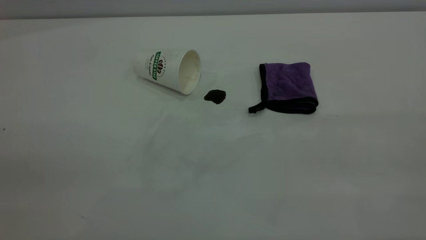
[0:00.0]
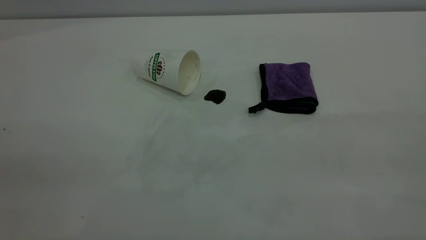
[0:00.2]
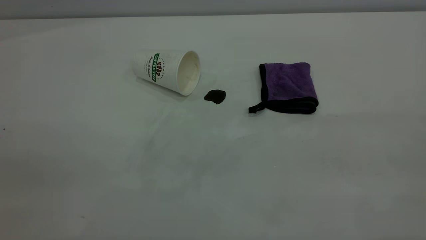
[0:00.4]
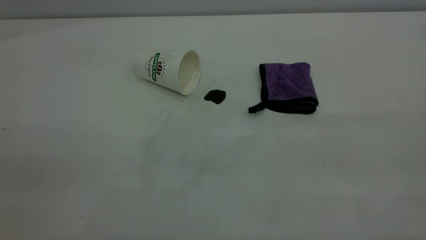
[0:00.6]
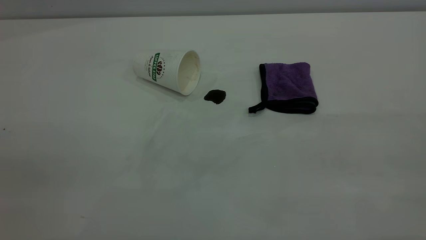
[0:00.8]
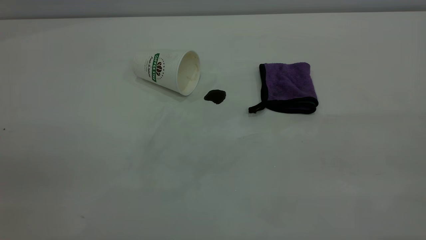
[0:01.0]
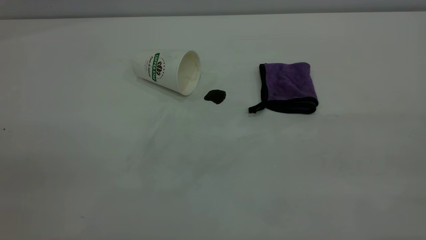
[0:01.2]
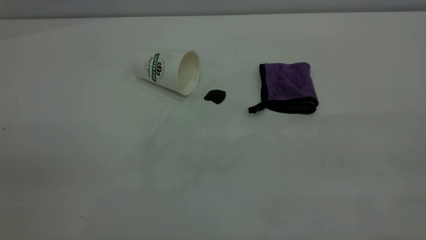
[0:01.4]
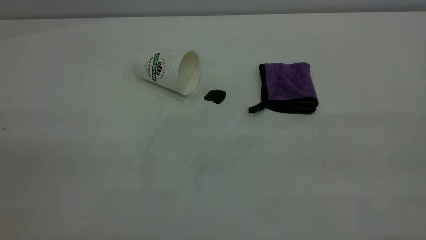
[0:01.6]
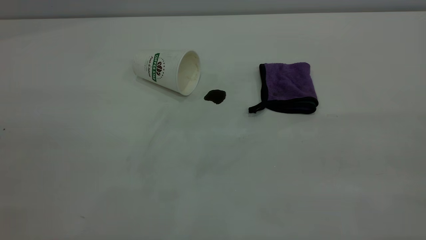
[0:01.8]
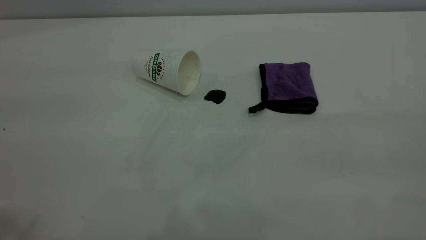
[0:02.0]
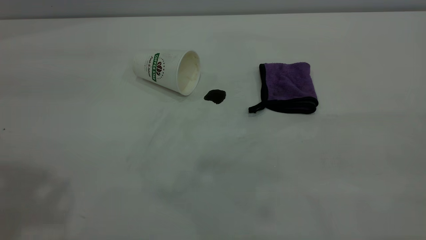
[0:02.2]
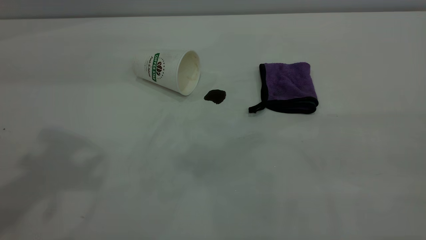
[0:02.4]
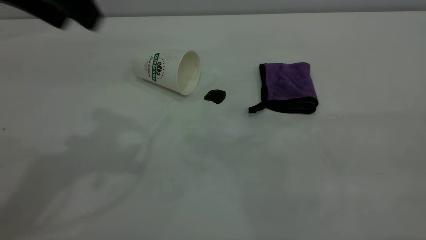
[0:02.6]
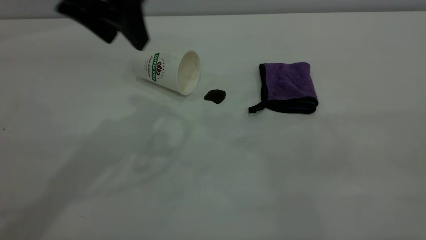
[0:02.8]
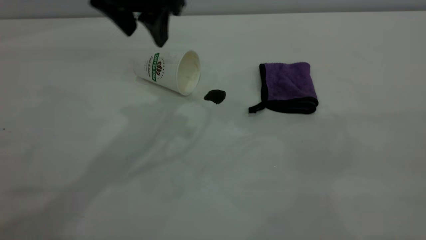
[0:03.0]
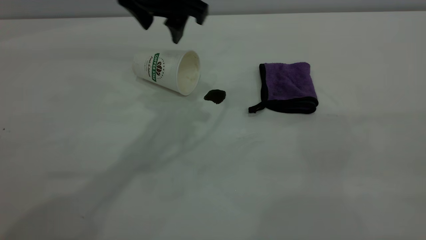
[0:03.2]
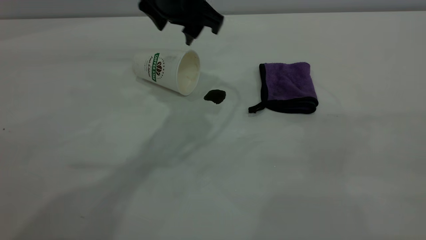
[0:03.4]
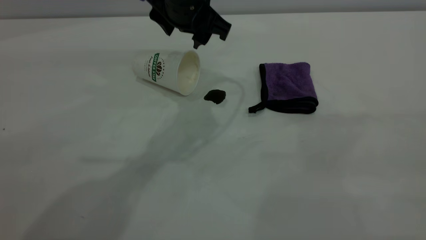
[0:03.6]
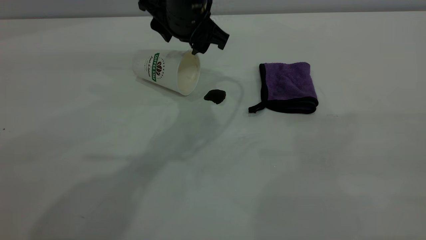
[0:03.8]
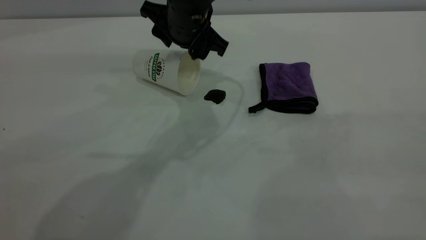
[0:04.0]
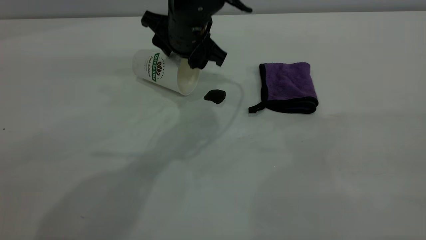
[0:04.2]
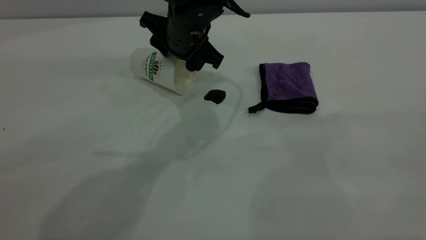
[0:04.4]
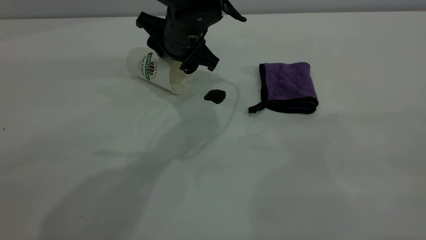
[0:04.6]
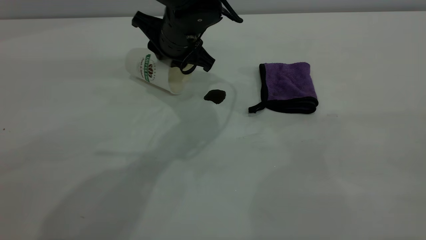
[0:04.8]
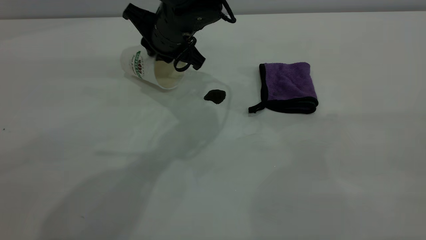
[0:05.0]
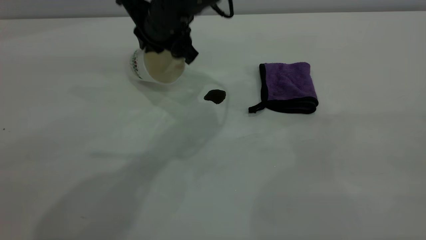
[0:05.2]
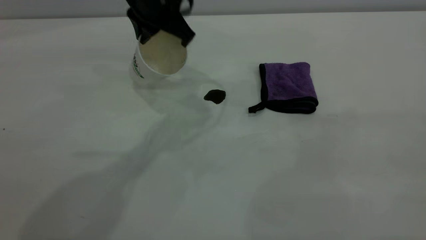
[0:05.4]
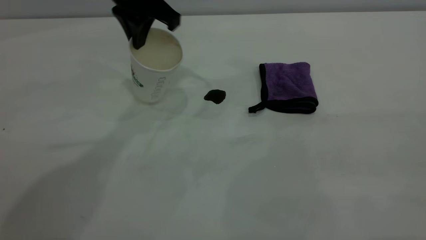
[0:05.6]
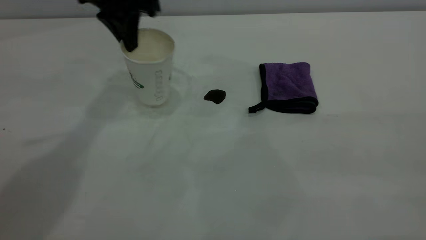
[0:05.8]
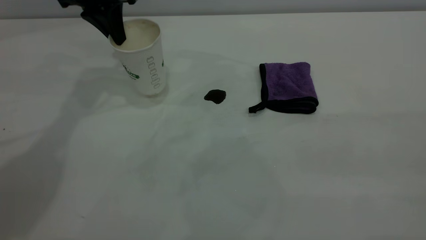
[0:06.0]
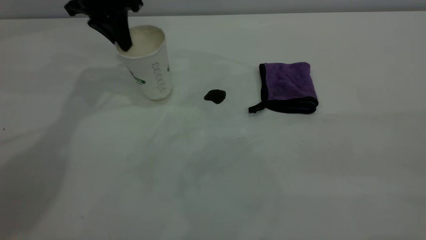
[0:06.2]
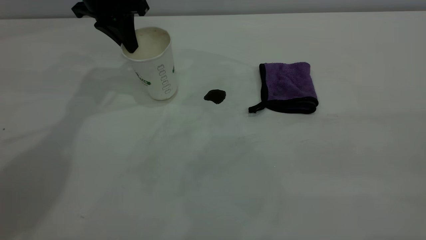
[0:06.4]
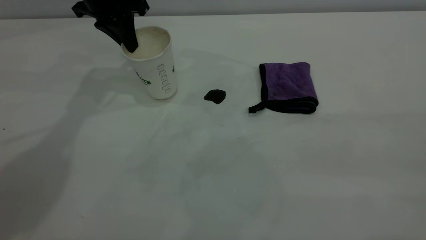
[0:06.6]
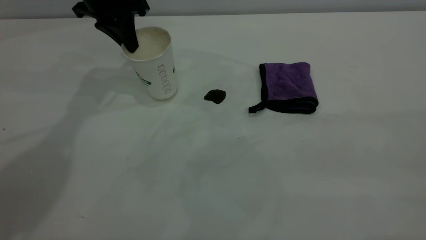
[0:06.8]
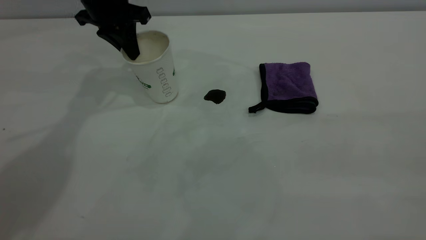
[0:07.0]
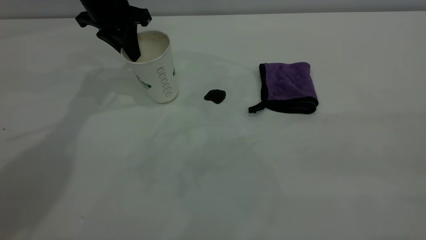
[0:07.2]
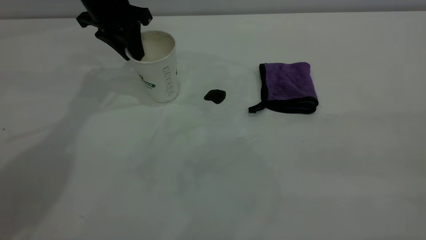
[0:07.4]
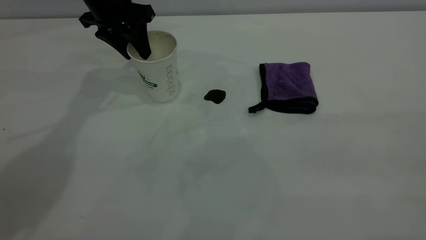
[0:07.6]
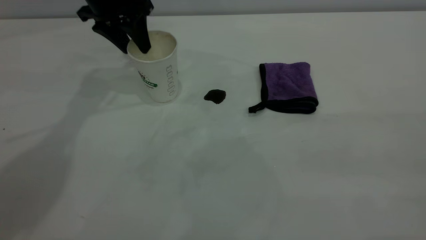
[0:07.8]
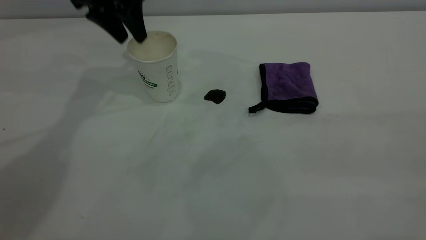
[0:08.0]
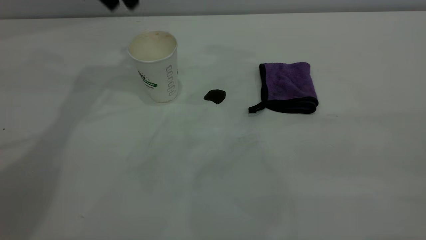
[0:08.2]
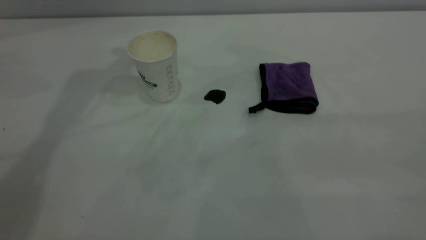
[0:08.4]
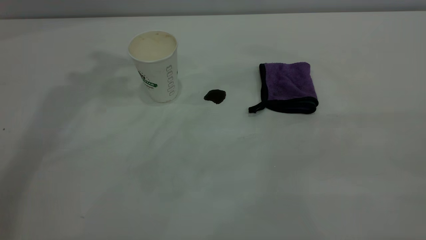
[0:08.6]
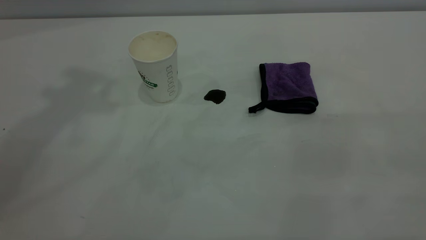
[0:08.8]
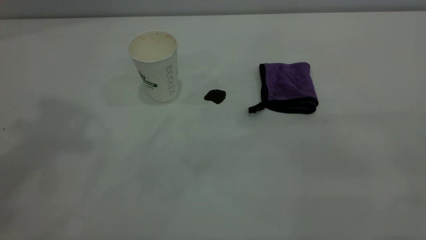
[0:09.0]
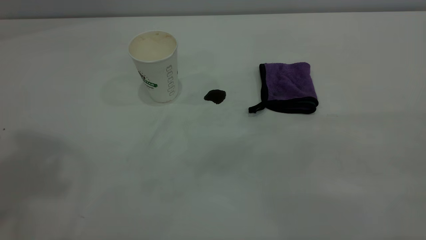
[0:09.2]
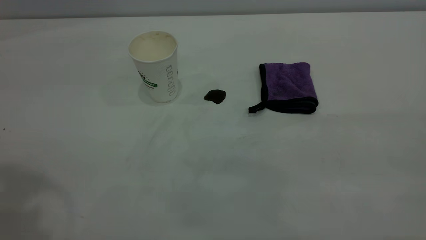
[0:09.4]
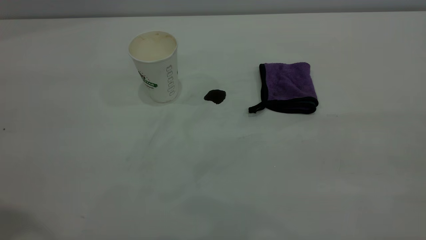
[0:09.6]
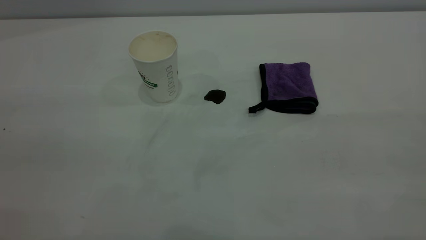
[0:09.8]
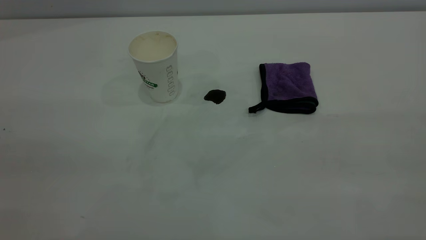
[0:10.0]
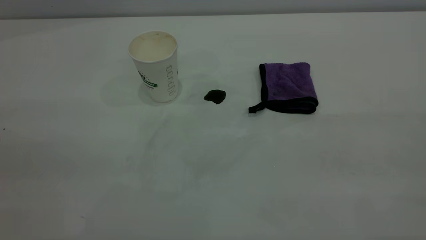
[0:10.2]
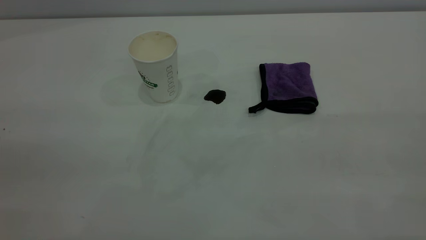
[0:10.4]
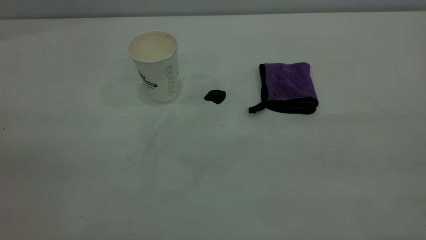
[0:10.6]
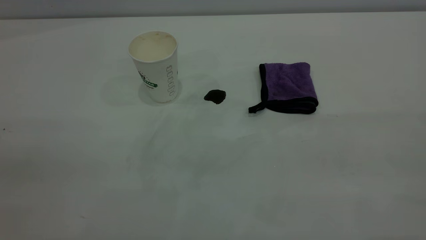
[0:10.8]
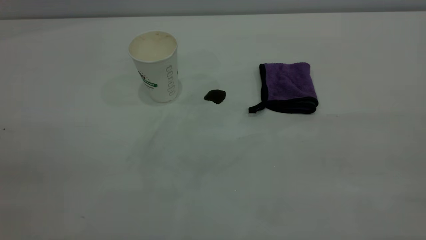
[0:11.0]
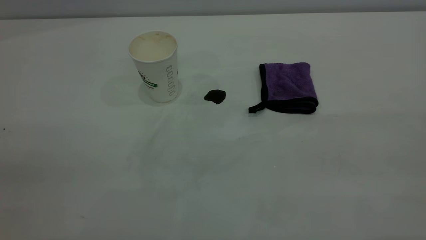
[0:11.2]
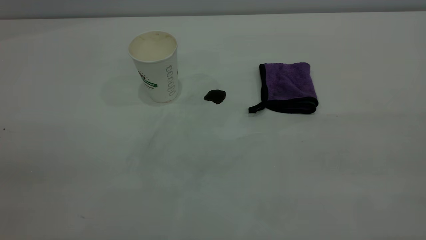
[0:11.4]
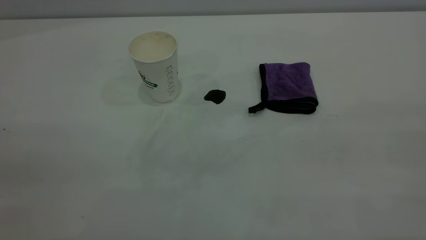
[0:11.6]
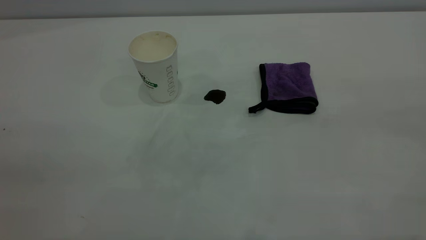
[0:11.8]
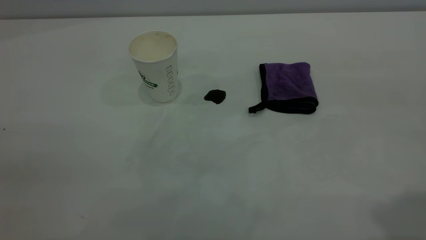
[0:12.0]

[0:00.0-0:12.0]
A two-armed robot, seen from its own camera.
Task of the whole recording: the left gripper pick up the fallen cup and place it upright, the right gripper grasp the purple rag and wipe the coffee stain on the table, the right gripper put the purple rag back in its original position.
Step, 0:00.0 to 0:08.0: Stand the paper cup upright.
0:01.6 to 0:03.0: The left gripper shifts roughly 40 cm forward and to the right.
0:03.0 to 0:04.4: The left gripper goes some 15 cm downward.
0:04.4 to 0:06.0: The left gripper is displaced to the left and upward by roughly 20 cm, and closes.
0:06.0 to 0:07.6: The left gripper opens its fingers.
0:07.6 to 0:09.0: The left gripper shifts roughly 40 cm upward and backward.

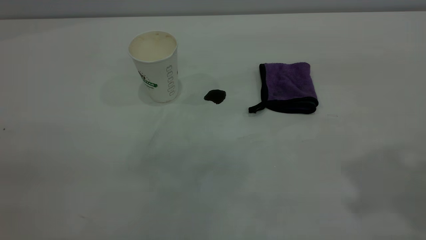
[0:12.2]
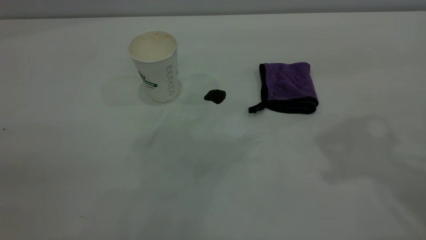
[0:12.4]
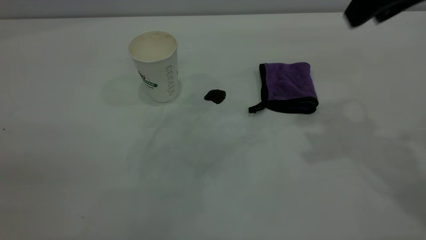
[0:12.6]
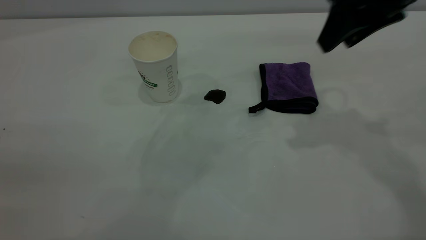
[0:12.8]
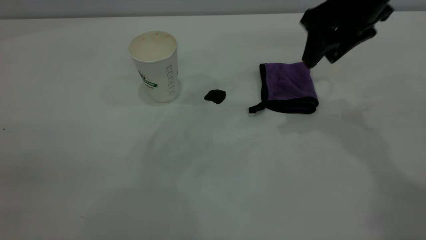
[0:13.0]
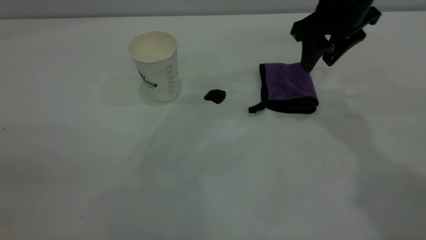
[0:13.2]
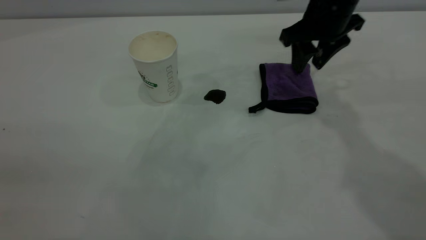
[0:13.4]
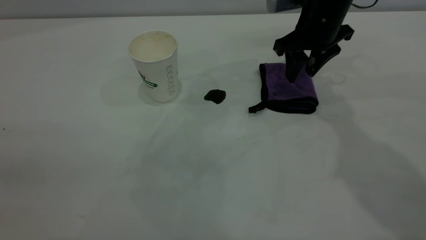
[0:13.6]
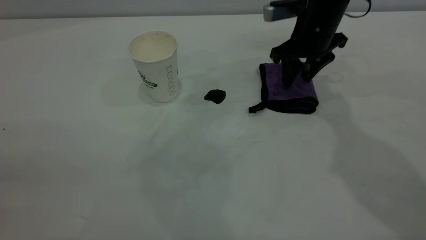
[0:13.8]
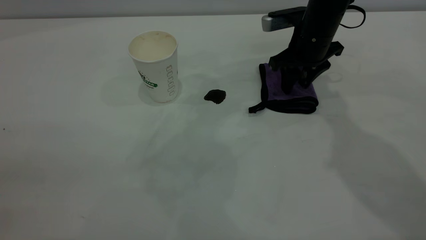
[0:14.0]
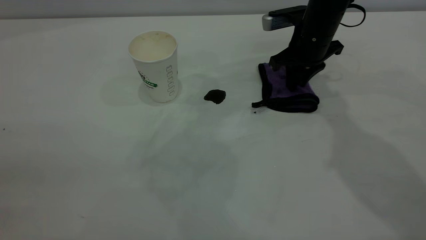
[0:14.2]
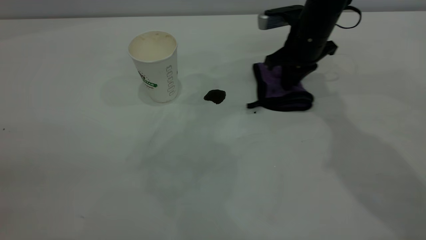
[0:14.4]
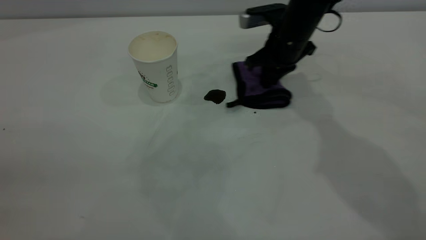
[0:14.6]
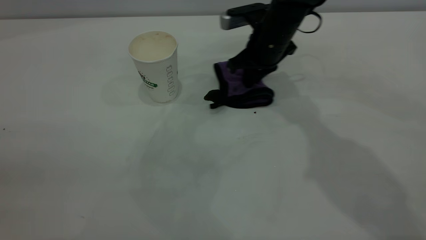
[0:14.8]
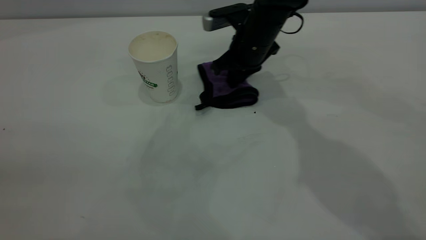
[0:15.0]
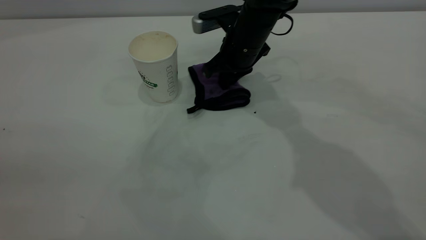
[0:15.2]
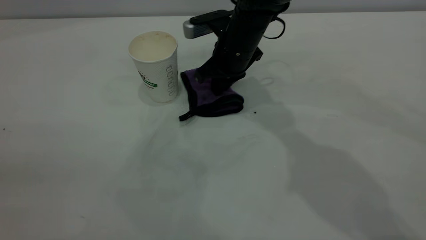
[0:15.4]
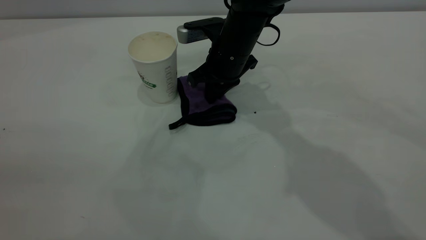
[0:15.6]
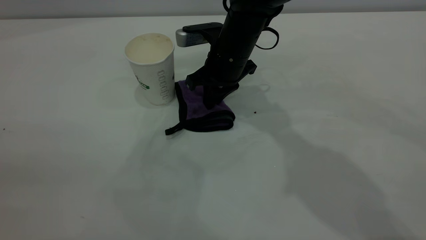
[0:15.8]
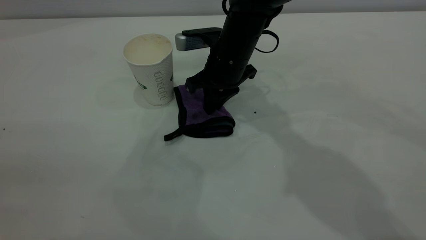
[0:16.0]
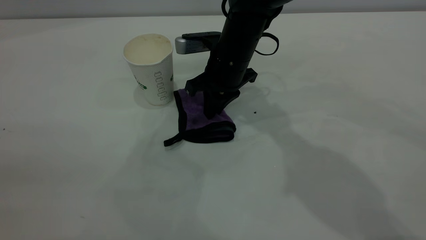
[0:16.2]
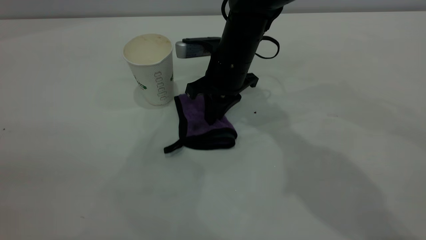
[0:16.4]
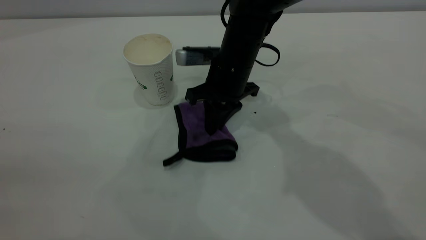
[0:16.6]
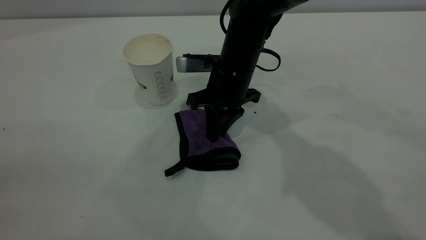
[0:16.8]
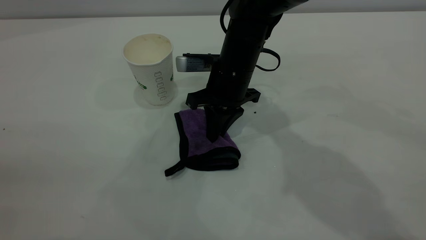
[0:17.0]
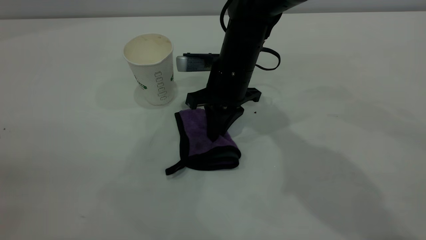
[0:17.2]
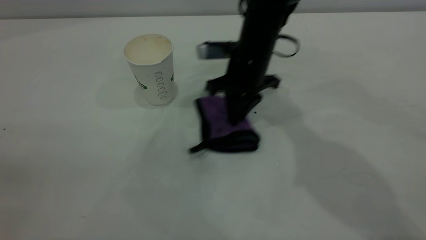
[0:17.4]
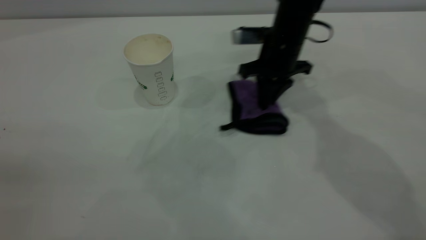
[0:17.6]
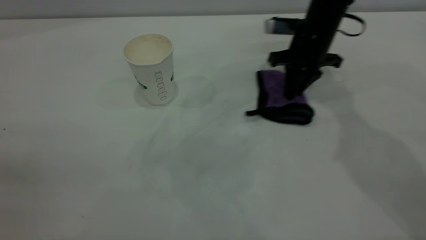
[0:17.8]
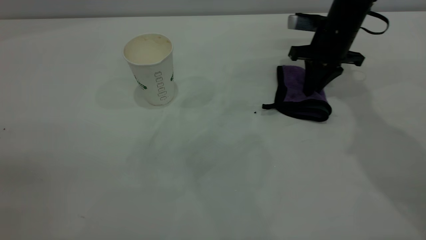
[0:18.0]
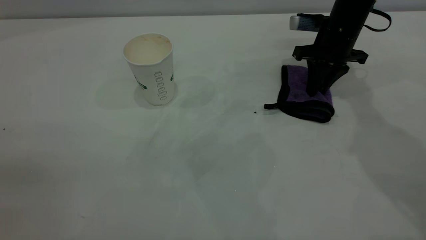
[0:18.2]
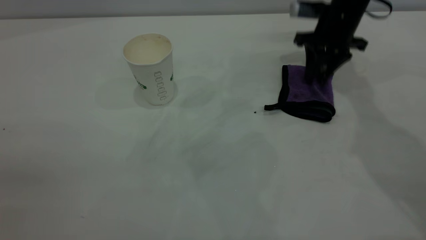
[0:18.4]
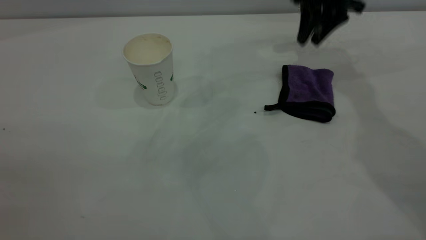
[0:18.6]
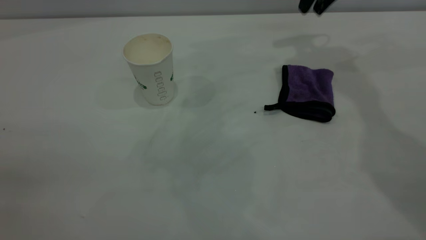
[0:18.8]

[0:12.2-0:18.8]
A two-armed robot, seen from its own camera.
Task of the whole recording: the left gripper pick up the fallen cup and place it upright, the right gripper grasp the purple rag and wipe the coffee stain on the table, the right gripper put the purple rag back in its original position.
Step, 0:12.2 to 0:18.4: Wipe the stains off the table with a rag.
0:12.2 to 0:13.8: The right gripper travels downward and forward by some 35 cm.
0:13.8 to 0:15.4: The right gripper shifts approximately 15 cm to the left, and closes up.
0:17.2 to 0:18.8: The right gripper is displaced to the right, upward and forward by about 25 cm, and opens its fingers.
